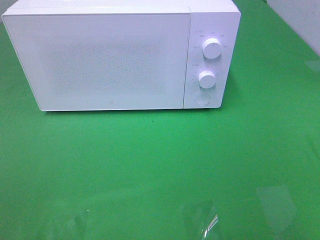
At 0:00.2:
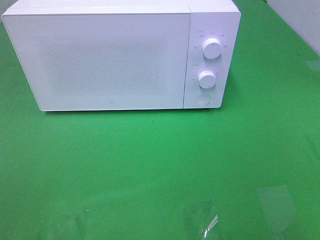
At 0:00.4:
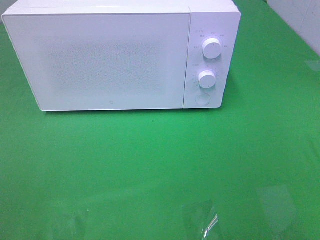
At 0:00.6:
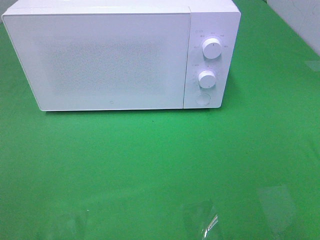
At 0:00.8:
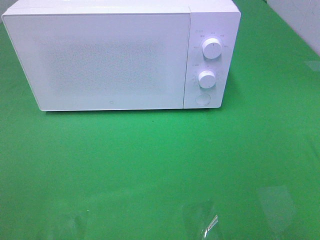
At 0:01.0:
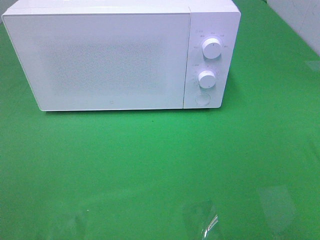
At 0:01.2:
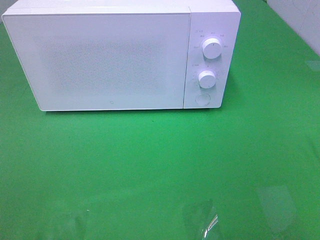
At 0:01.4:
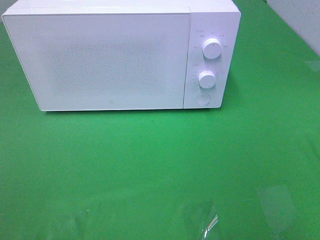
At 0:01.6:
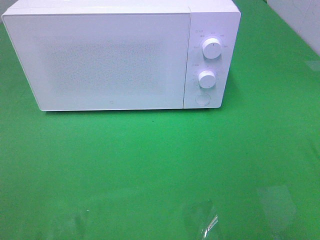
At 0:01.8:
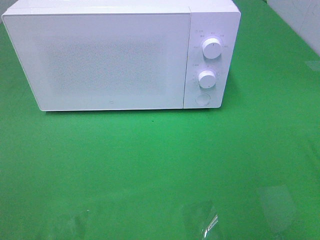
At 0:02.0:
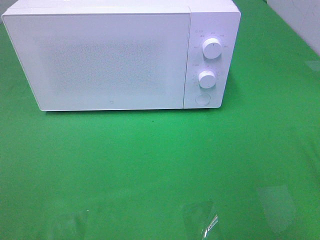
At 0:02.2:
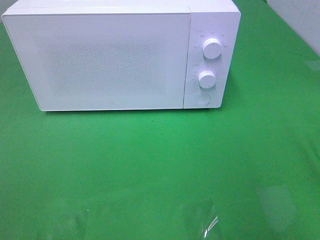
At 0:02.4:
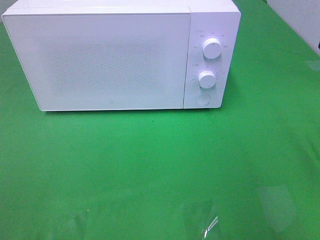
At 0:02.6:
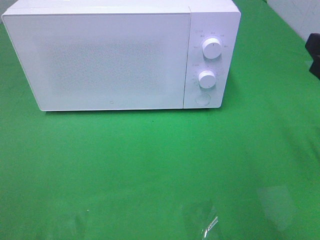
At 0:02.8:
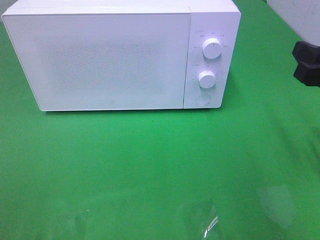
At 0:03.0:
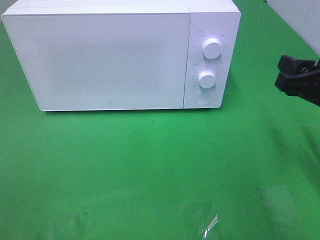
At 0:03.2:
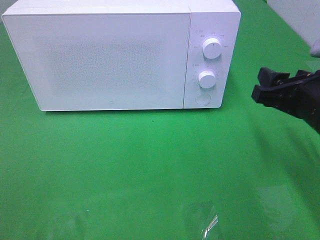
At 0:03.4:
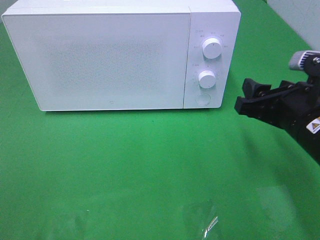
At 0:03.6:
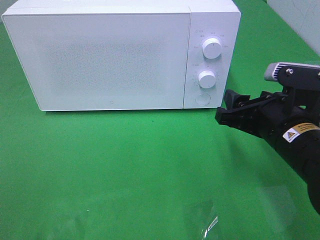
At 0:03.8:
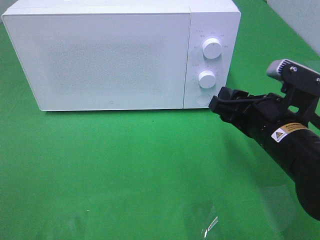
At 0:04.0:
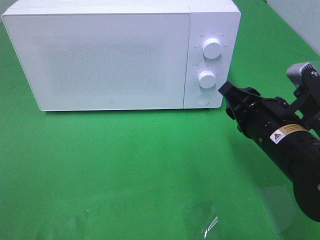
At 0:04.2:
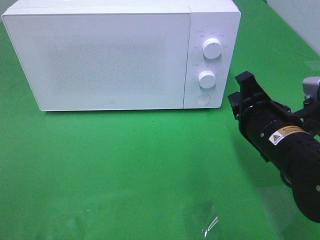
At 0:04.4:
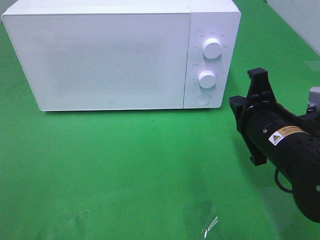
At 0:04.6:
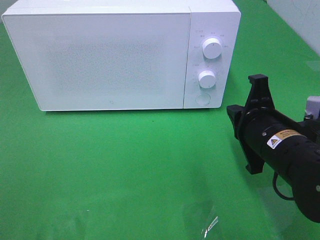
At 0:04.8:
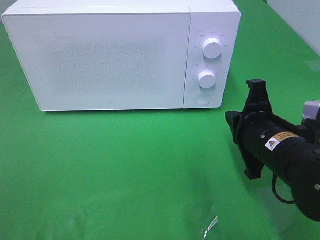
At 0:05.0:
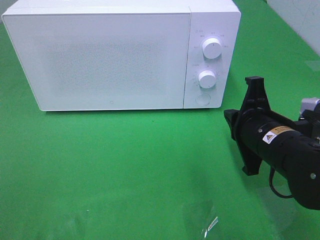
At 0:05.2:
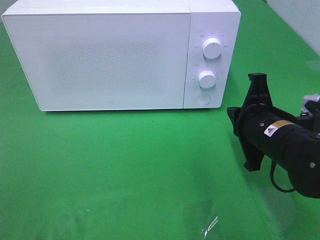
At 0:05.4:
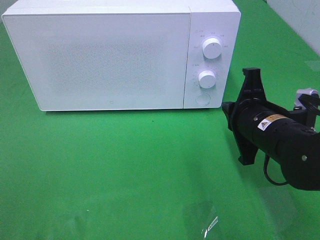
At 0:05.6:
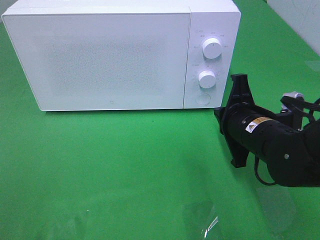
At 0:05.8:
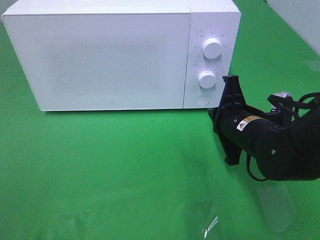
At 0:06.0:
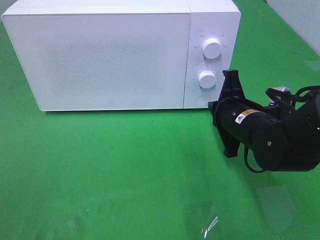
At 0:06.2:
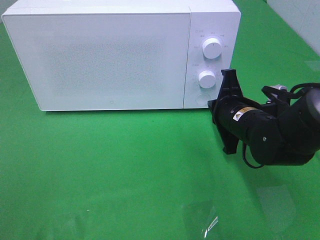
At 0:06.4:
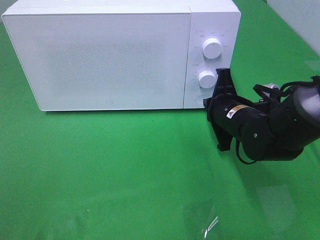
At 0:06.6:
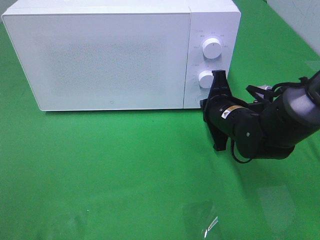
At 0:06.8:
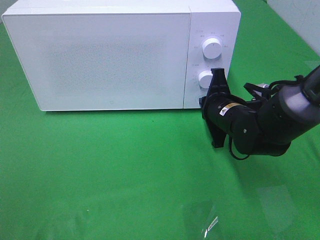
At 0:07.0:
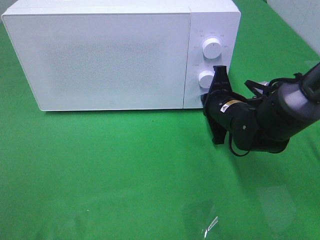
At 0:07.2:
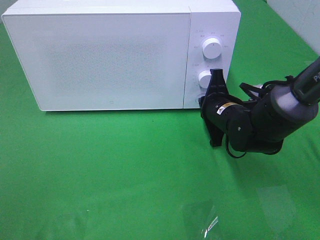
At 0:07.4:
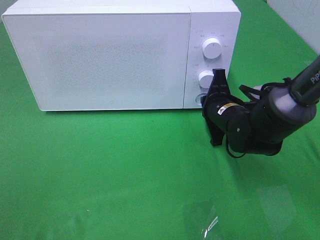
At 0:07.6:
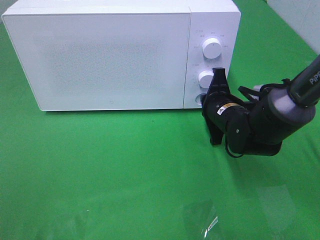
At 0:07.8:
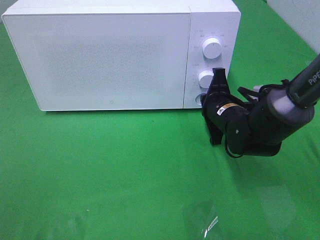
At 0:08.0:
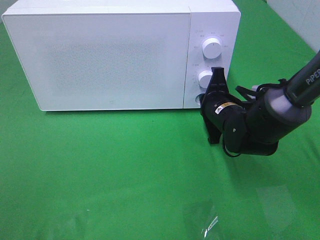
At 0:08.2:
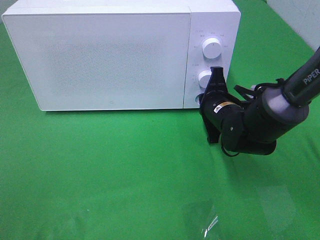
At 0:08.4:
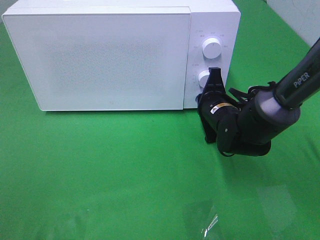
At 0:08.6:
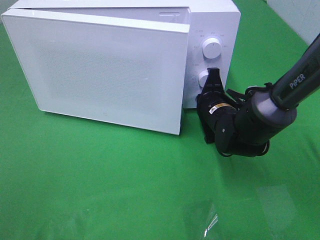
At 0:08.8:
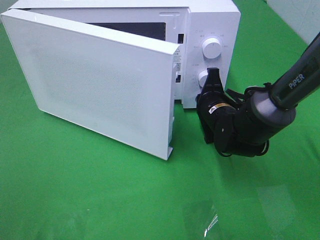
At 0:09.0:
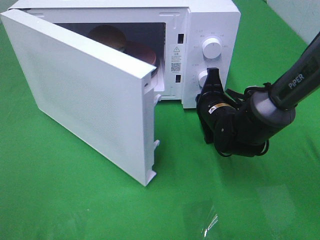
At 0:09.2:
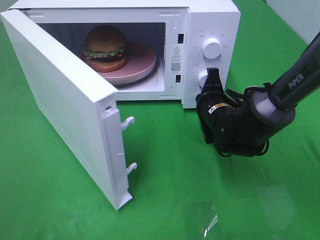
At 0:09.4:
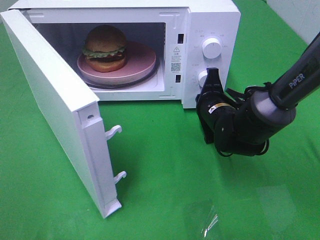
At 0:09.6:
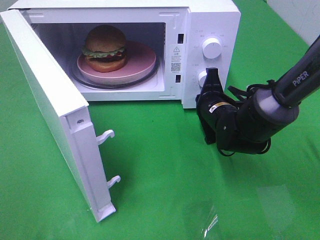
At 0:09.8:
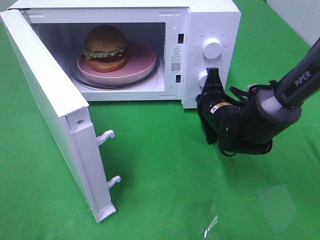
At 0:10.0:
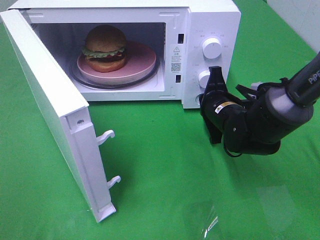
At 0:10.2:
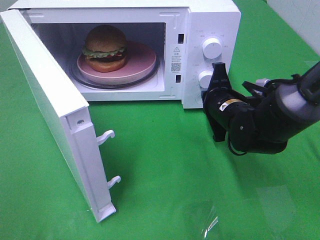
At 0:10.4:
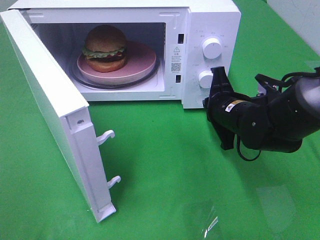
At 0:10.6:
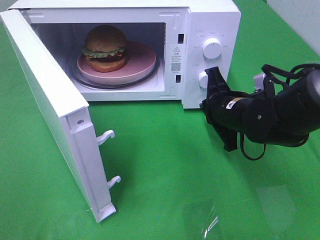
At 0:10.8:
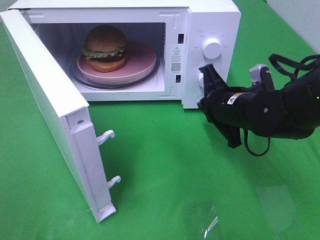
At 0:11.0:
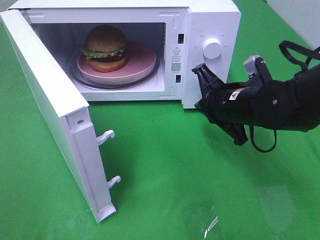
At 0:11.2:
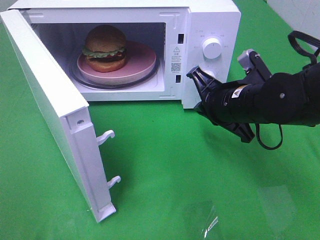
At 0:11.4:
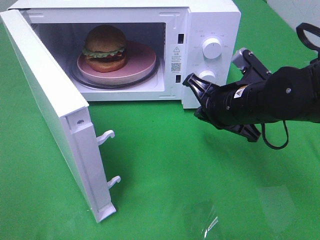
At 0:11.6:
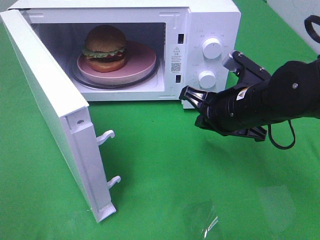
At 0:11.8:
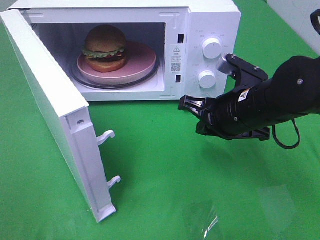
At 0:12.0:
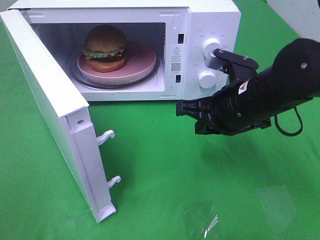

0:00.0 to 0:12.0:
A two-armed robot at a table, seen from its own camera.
Task of the whole recording: Heat the burger.
Step, 0:00.0 to 0:10.6: Right hand: press the switch.
0:01.6 to 0:03.0: The right gripper goes about 15 cm forward and downward.
0:03.0 to 0:04.4: The right gripper shifts about 10 cm to the left and downward, and closes its fingers.
0:04.4 to 0:06.0: The right gripper shifts some 5 cm forward.
0:06.0 to 0:07.6: The right gripper goes about 5 cm forward.
0:10.4 to 0:12.0: The right gripper shifts approximately 5 cm upward.

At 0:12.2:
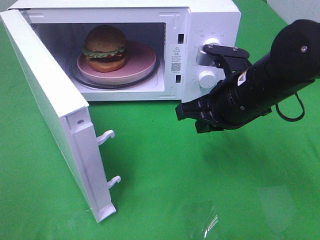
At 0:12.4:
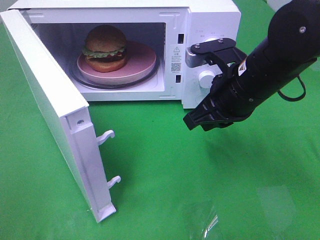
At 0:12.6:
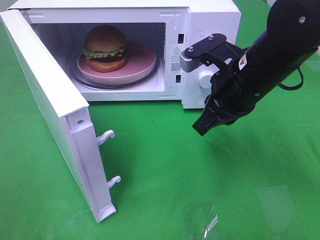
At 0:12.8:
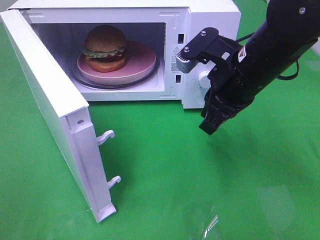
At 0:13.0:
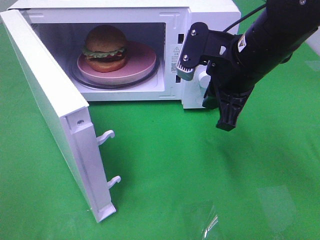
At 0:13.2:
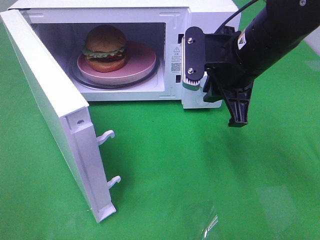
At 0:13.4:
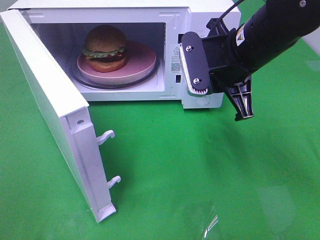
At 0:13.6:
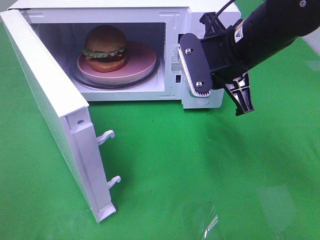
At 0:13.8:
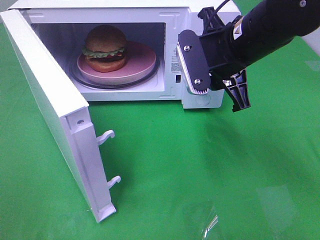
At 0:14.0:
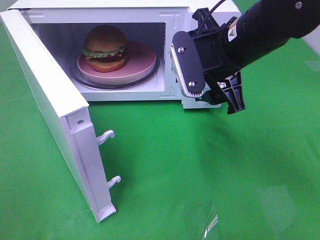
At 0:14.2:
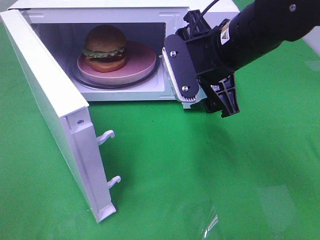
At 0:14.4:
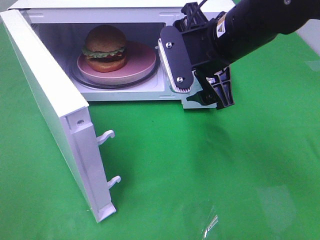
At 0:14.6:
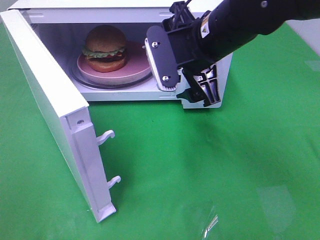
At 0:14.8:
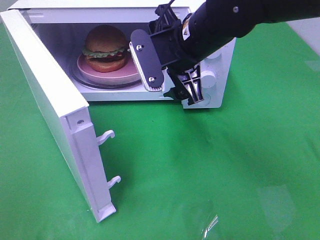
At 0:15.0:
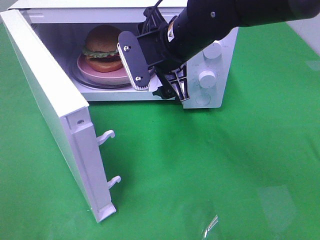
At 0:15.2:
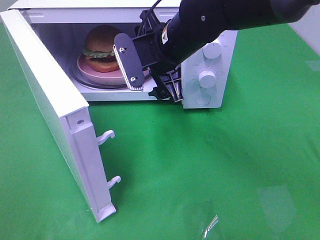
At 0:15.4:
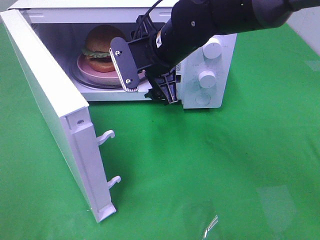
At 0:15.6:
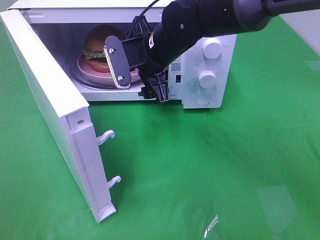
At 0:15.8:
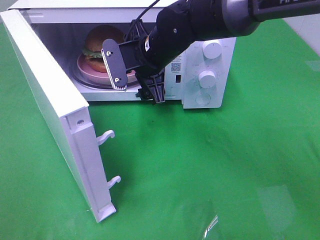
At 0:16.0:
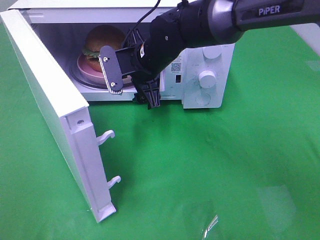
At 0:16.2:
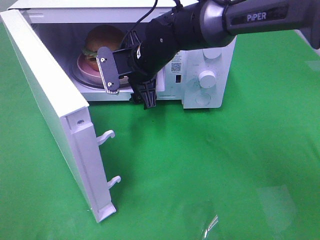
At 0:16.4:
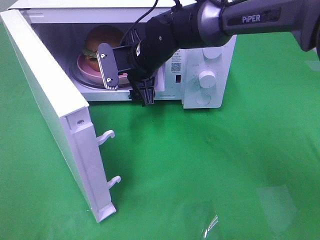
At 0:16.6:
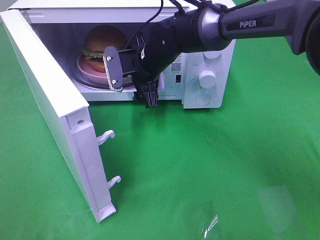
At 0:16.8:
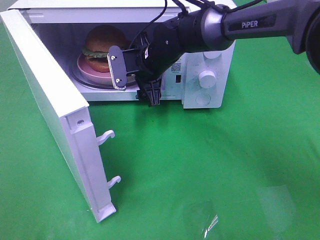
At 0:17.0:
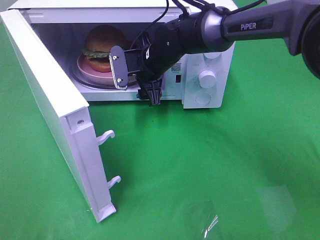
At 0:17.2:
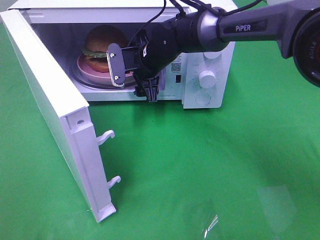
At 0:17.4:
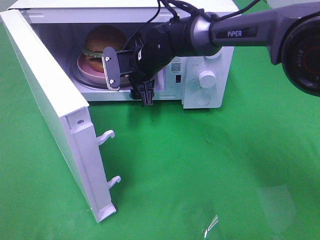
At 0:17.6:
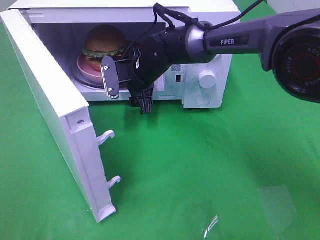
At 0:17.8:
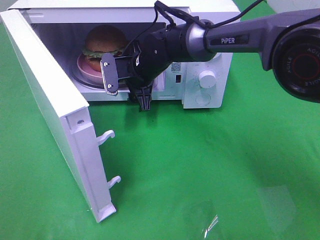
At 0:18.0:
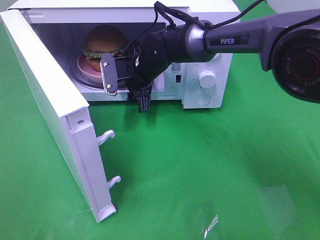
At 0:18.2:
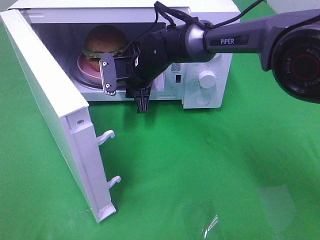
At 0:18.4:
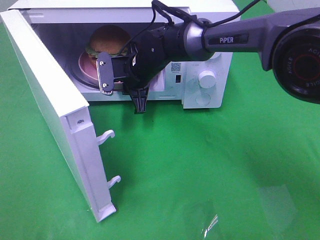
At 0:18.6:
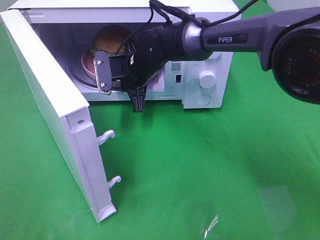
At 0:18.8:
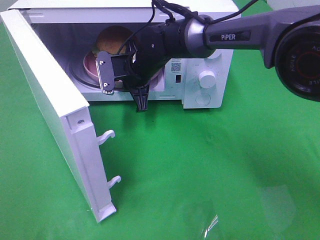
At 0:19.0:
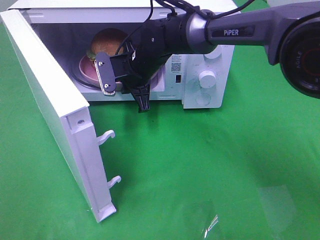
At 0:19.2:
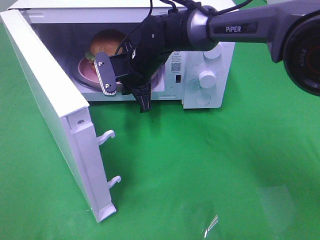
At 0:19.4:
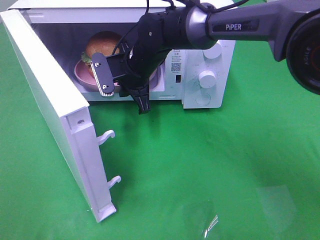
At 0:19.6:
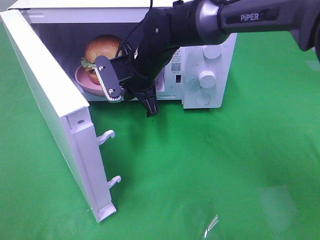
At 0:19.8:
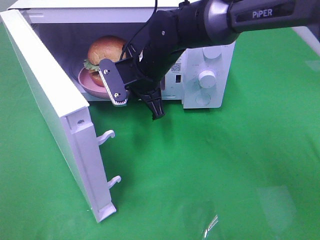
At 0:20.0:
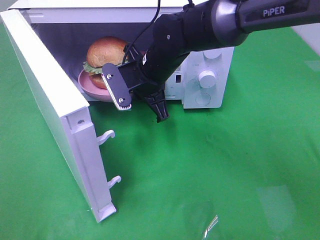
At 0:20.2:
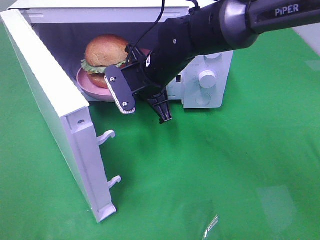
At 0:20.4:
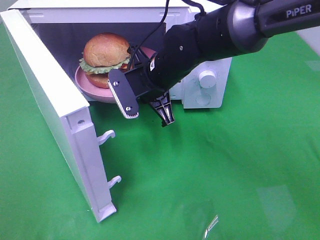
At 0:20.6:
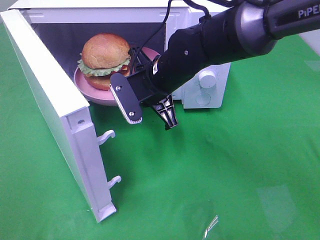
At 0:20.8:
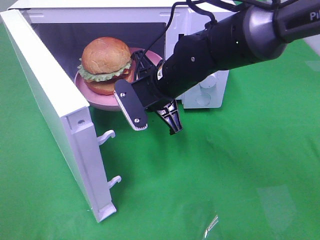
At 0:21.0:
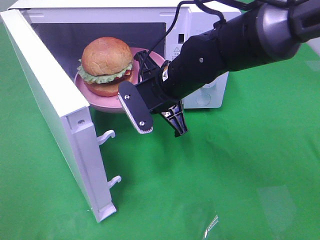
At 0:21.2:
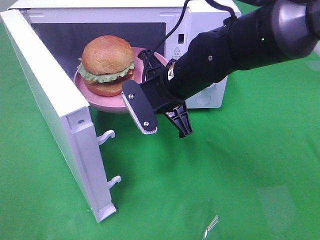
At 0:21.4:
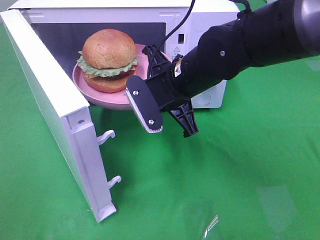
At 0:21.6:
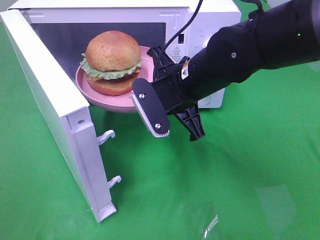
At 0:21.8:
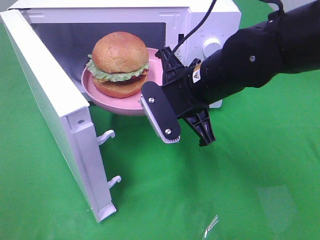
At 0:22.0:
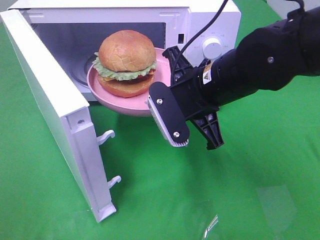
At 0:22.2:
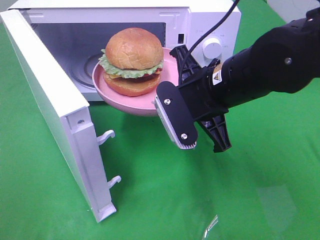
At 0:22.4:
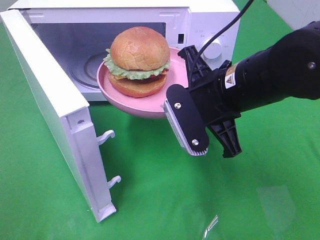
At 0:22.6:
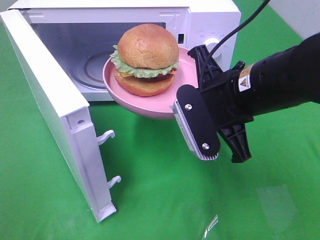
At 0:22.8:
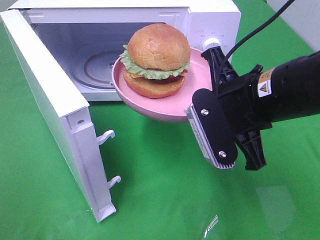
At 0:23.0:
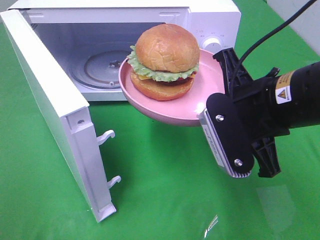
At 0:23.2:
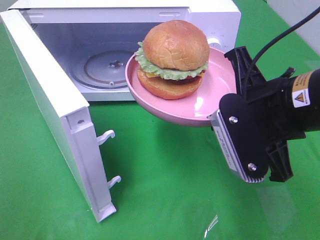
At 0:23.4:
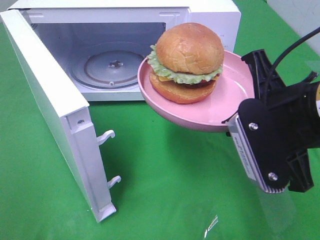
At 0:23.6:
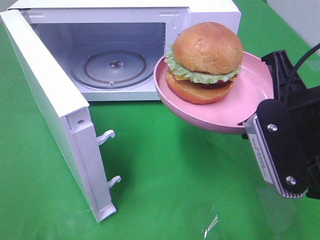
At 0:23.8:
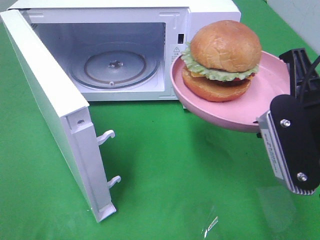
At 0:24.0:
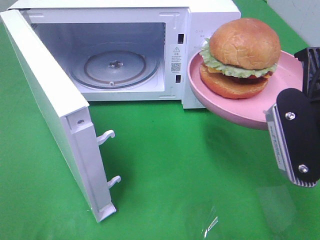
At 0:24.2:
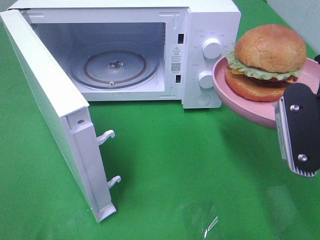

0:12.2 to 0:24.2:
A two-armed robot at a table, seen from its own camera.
Task of the whole recording: Heat the burger.
Step, 0:12.2 to 0:18.4: Right hand: grab the plate with the hamburger.
0:12.2 to 0:13.8: The right gripper moves upward, some 5 cm, and opens its fingers.
0:13.8 to 0:15.2: The right gripper travels to the left by about 10 cm, and opens up.
0:15.2 to 0:16.6: The right gripper shifts roughly 10 cm forward and downward.
0:16.6 to 0:18.2: The right gripper closes its fingers.
0:18.2 to 0:19.8: The right gripper travels backward by roughly 5 cm, and closes its fingers.
0:19.8 to 0:21.2: The right gripper moves backward, some 5 cm.
0:21.2 to 0:22.6: The right gripper goes approximately 10 cm backward and to the right.
0:22.6 to 0:24.2: The right gripper is displaced to the right and backward by roughly 10 cm.
